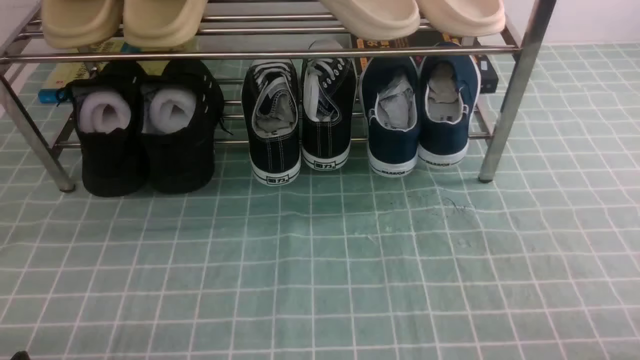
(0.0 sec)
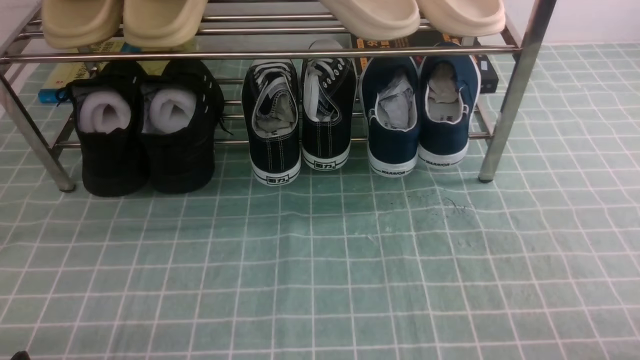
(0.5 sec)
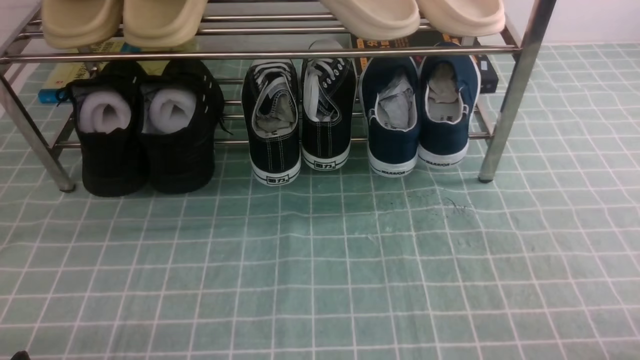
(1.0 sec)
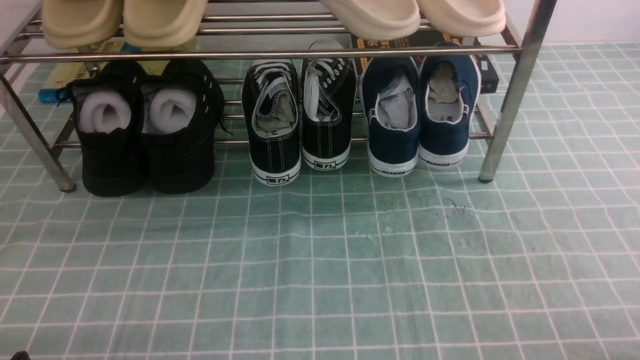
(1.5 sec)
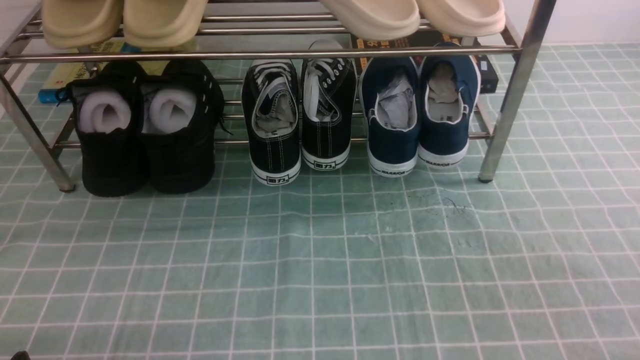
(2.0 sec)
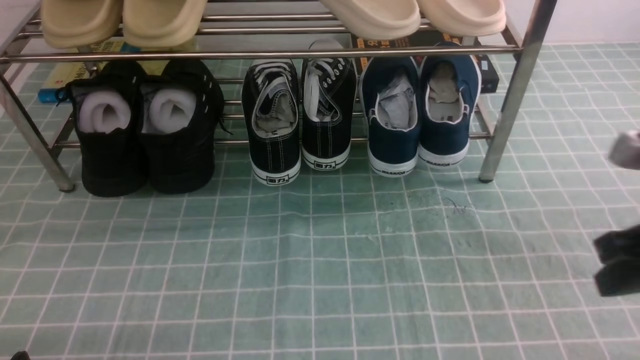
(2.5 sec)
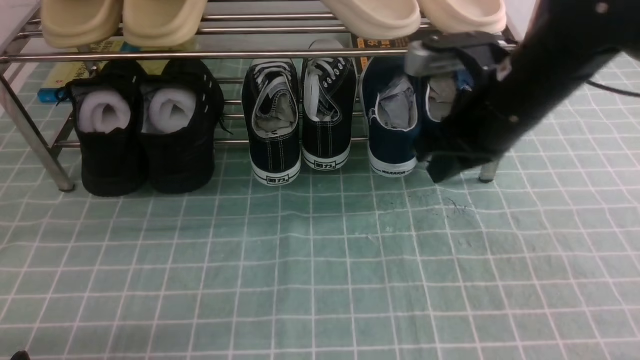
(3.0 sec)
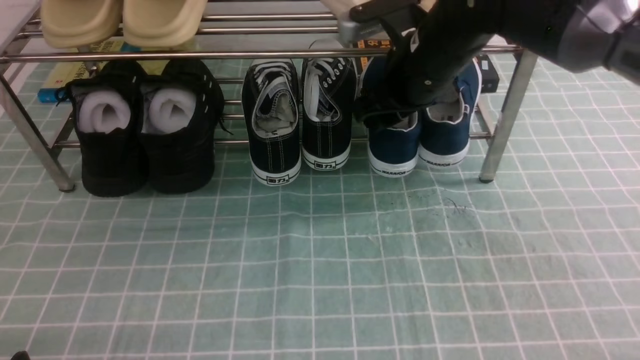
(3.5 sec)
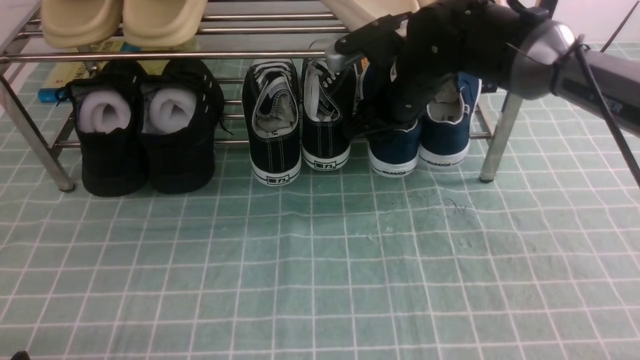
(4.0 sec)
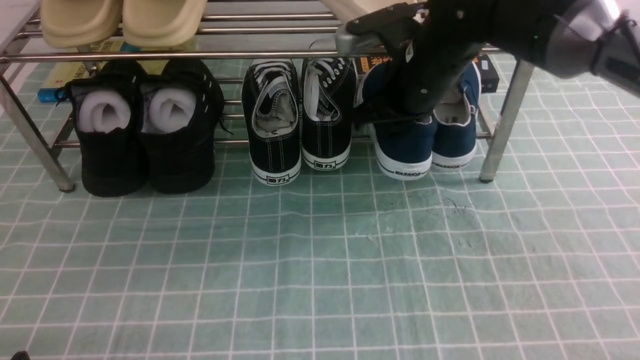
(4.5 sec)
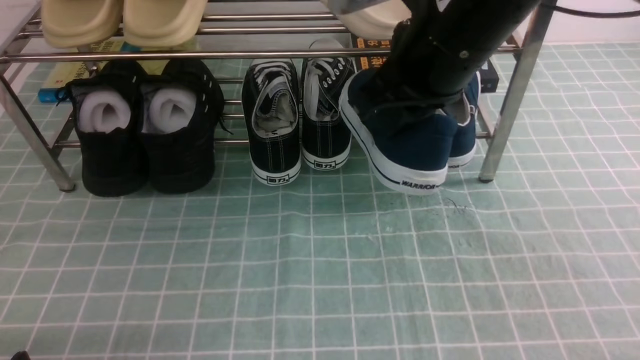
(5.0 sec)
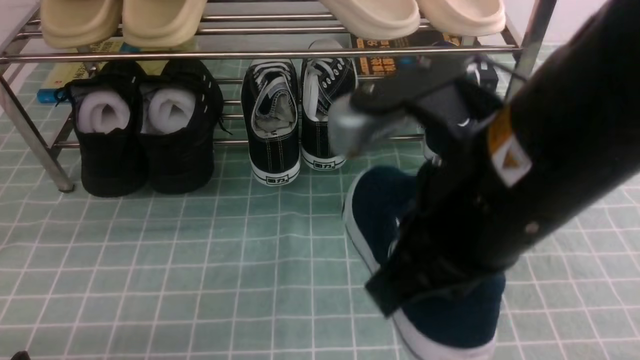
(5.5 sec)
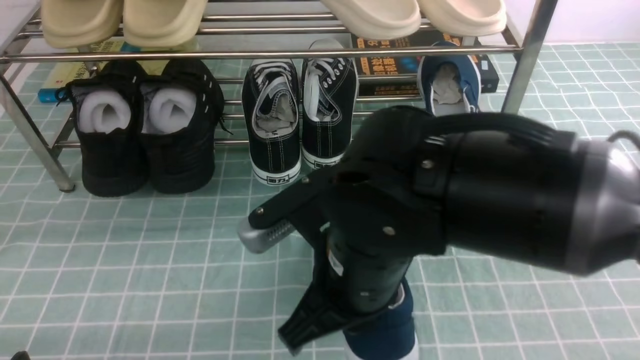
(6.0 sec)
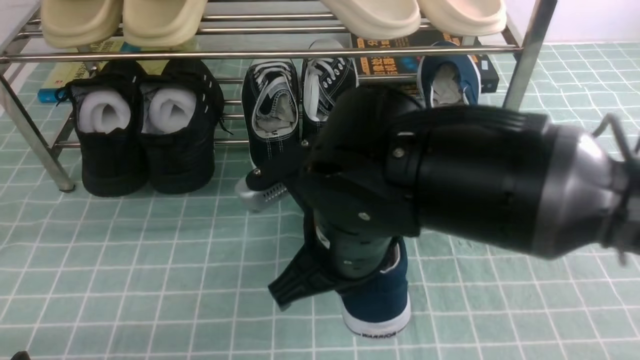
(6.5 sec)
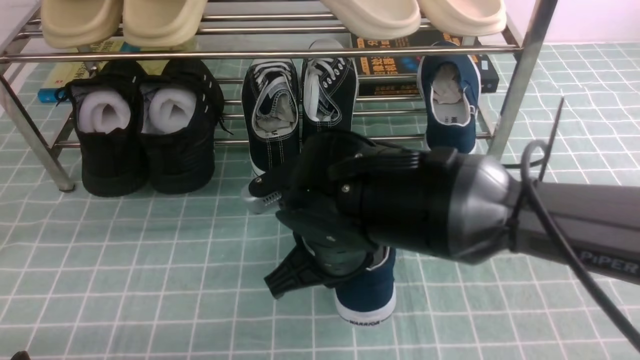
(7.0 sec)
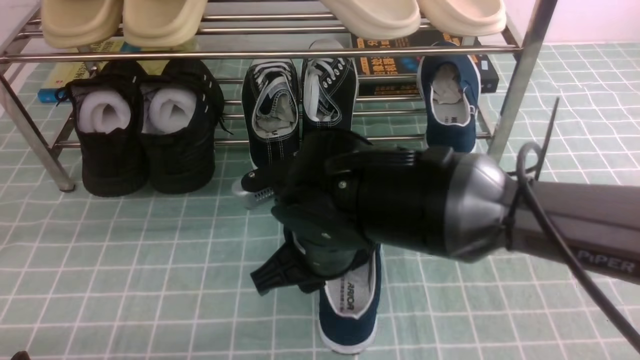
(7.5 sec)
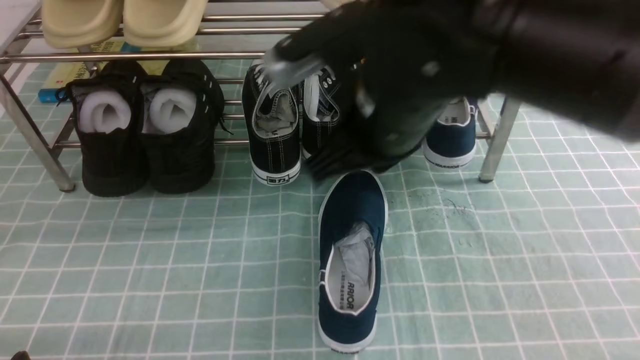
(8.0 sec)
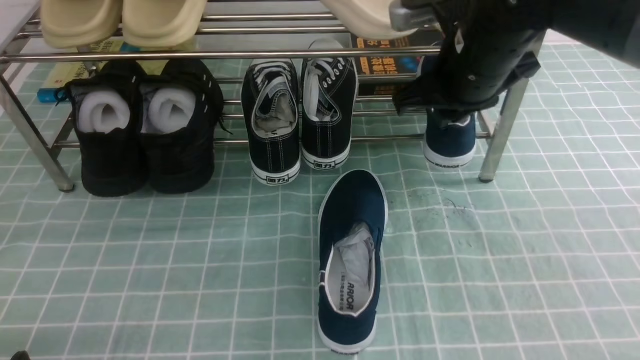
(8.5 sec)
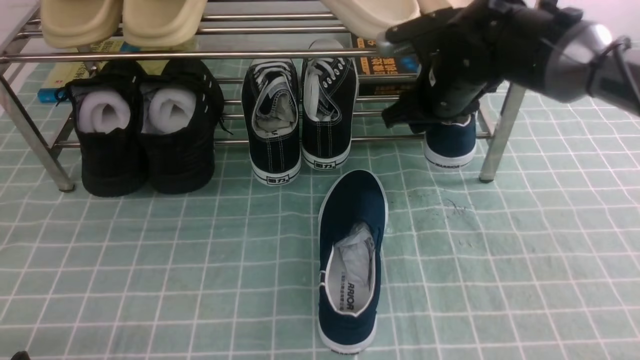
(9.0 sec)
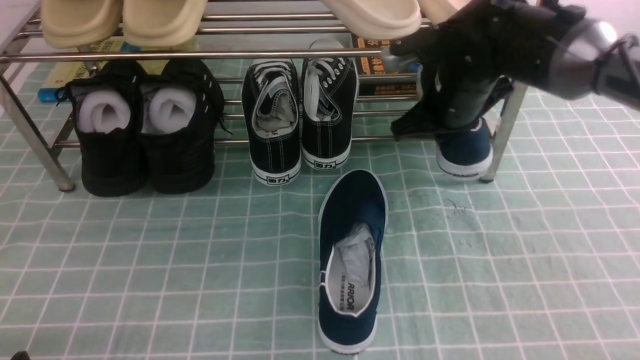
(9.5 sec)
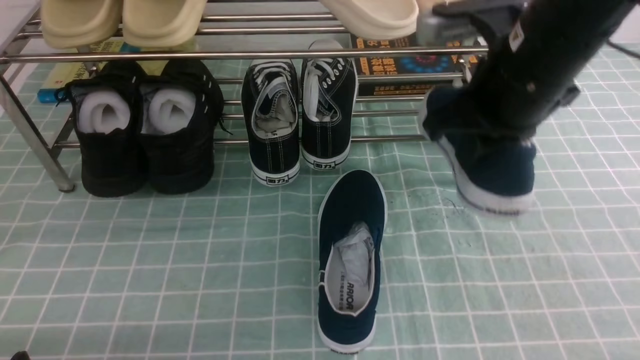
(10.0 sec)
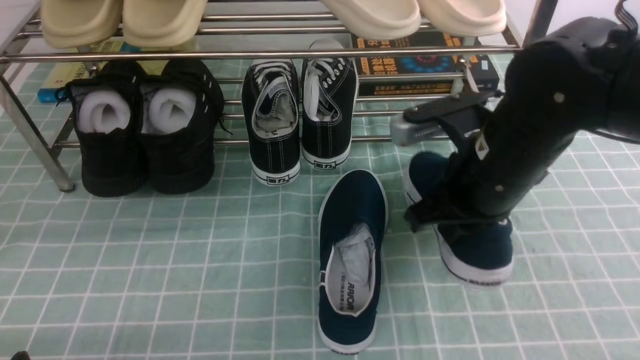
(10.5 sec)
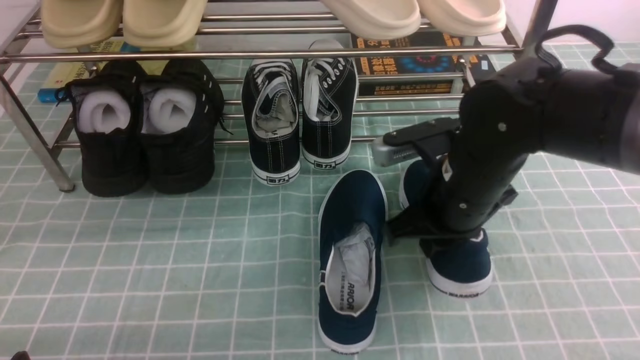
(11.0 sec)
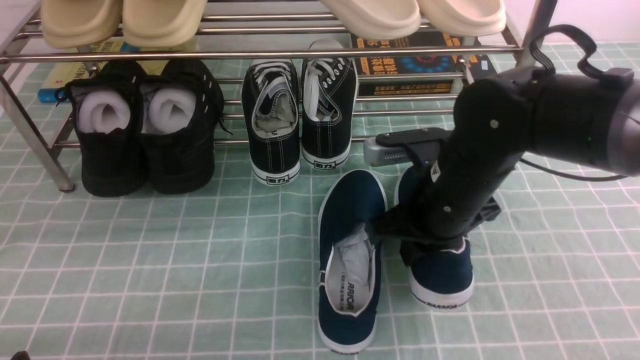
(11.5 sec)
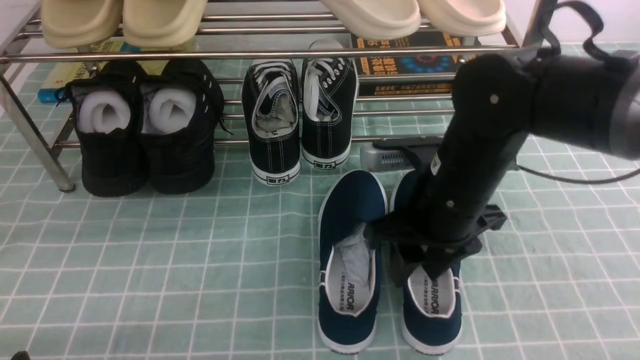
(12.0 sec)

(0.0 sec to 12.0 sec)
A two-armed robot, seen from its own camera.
Step, 0.0 sec - 4.0 sec: use the right arm to clamp a shoe on the right side of the shoe rack.
Step, 4.5 sec - 7.5 sec: use the right arm to take out the clamped shoe from the shoe rack and put it down.
Step, 8.0 sec - 9.0 sec: use the right arm to clamp a shoe on the right side of the shoe rack.
2.0 sec - 4.0 sec: The right gripper heads forward and to the left, covering some 40 cm, and opens its fingers.
4.0 sec - 6.0 sec: The right gripper heads backward, covering about 25 cm, and closes.
6.0 sec - 8.0 sec: The right gripper is displaced forward by roughly 10 cm.
8.0 sec - 10.0 sec: The right gripper travels to the right and forward by approximately 15 cm, and opens and closes again.
10.0 sec - 12.0 sec: The right gripper shifts some 10 cm downward, and opens.

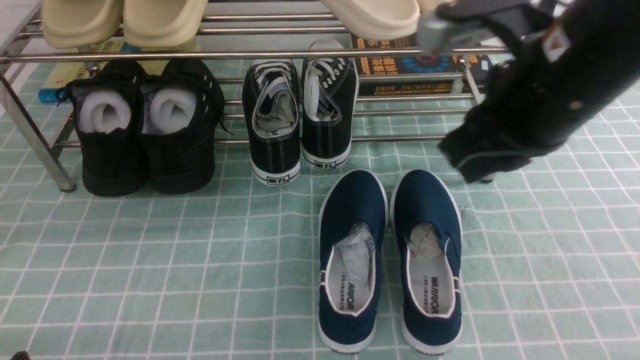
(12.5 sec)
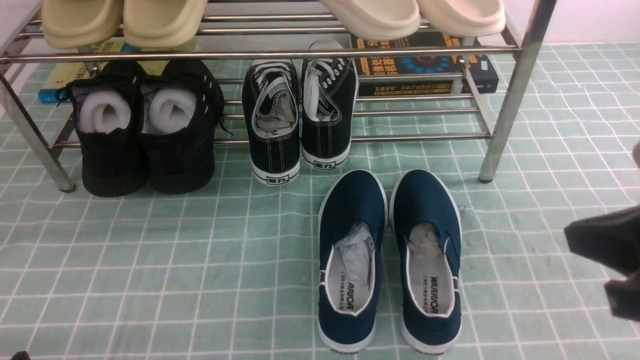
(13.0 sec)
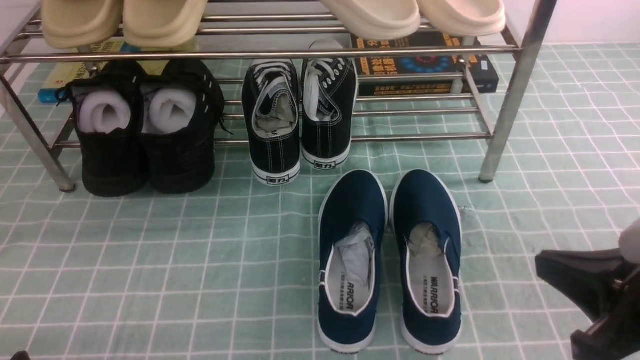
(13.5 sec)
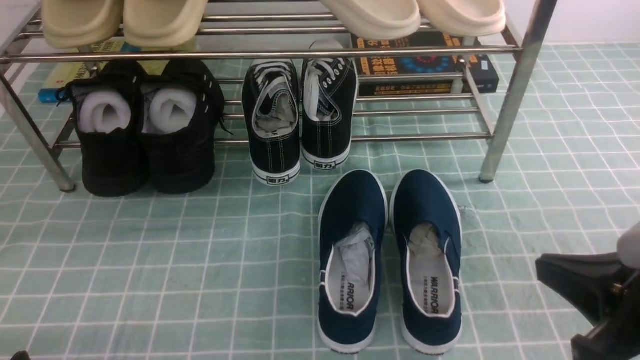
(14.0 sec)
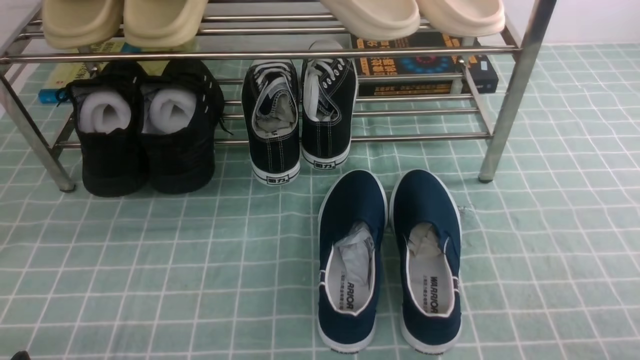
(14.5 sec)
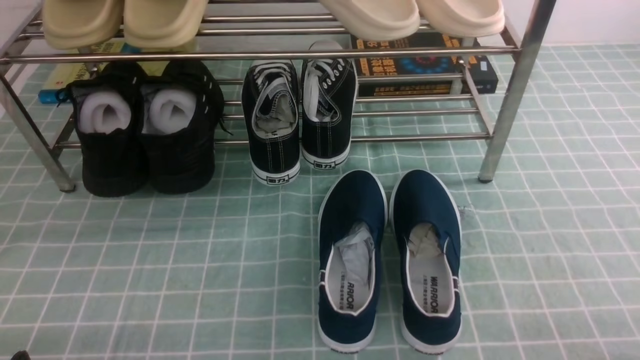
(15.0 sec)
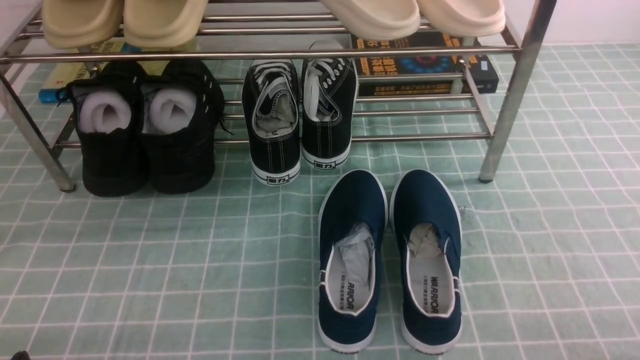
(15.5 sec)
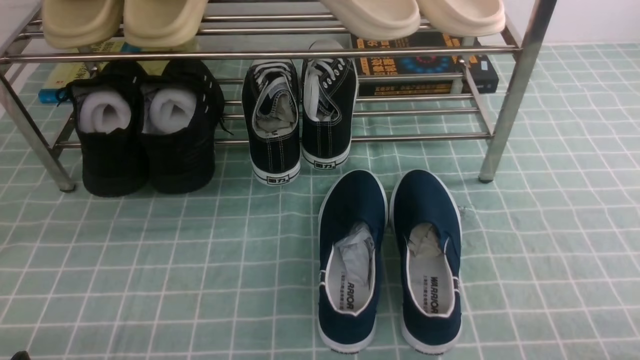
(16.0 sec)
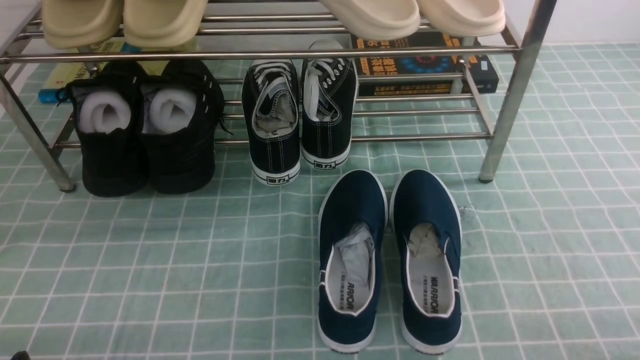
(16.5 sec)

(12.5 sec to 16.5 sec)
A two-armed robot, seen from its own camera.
12.5 sec - 14.5 sec: The right gripper heads backward, to the right and downward, covering some 30 cm, and closes up.
